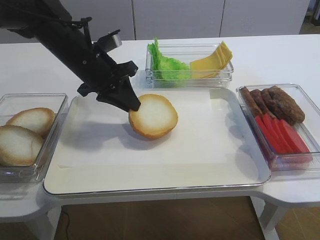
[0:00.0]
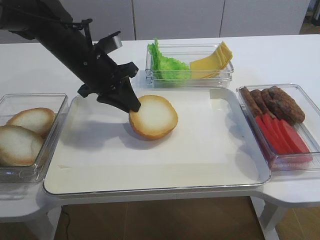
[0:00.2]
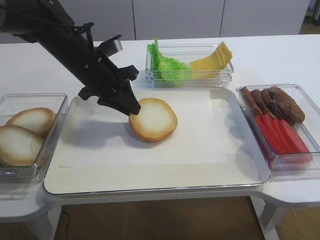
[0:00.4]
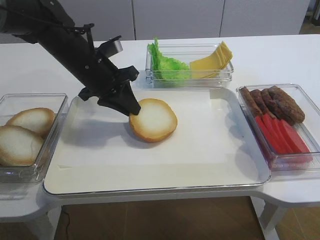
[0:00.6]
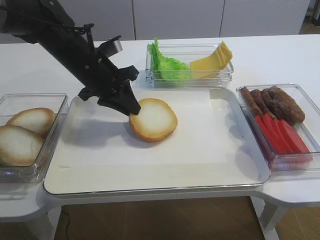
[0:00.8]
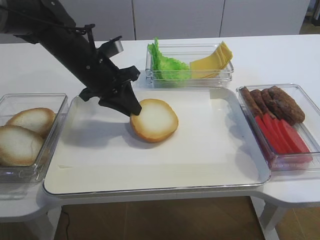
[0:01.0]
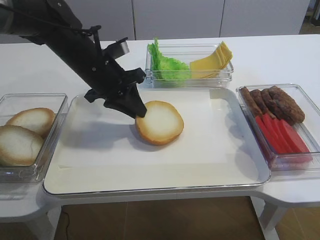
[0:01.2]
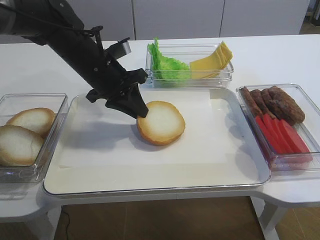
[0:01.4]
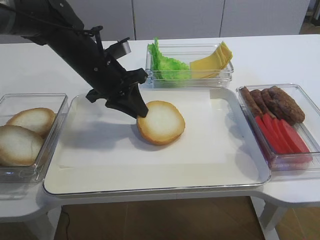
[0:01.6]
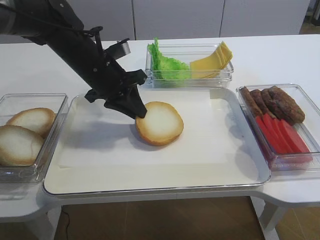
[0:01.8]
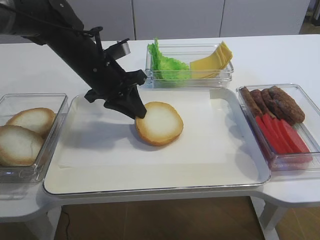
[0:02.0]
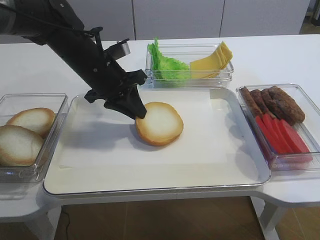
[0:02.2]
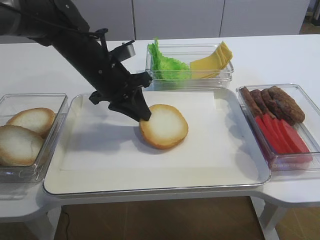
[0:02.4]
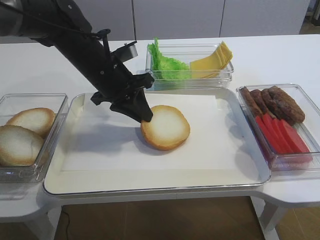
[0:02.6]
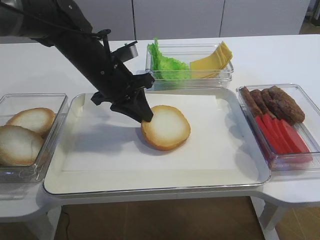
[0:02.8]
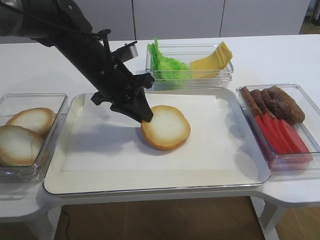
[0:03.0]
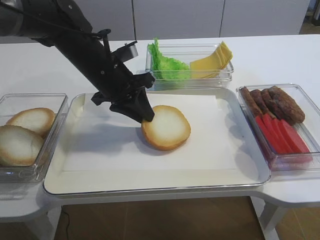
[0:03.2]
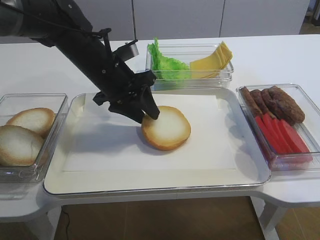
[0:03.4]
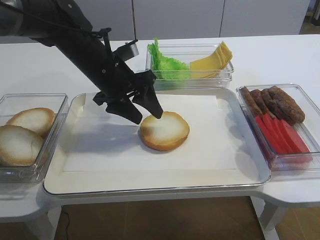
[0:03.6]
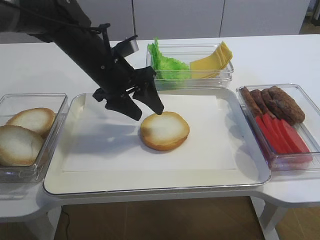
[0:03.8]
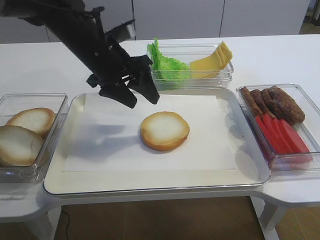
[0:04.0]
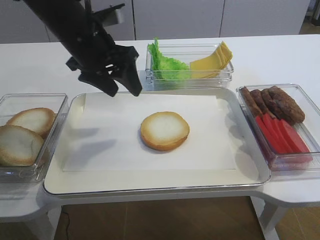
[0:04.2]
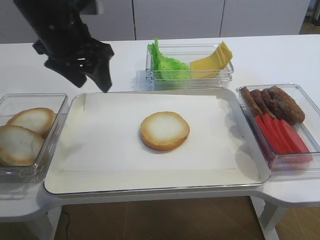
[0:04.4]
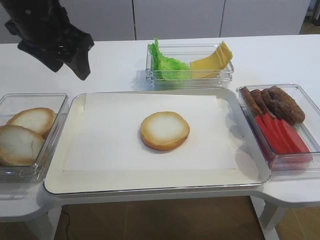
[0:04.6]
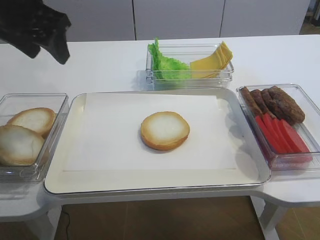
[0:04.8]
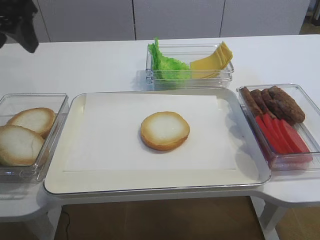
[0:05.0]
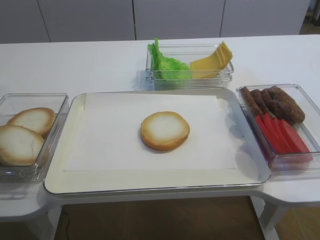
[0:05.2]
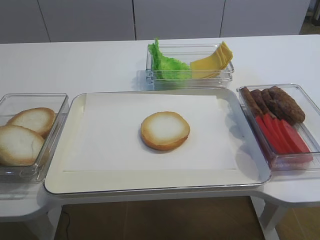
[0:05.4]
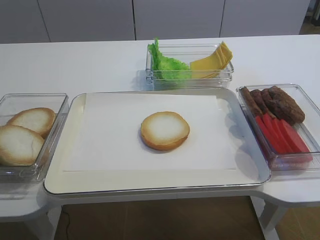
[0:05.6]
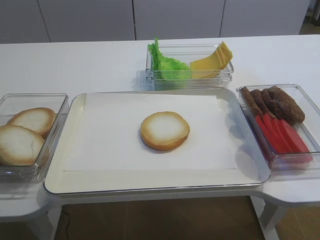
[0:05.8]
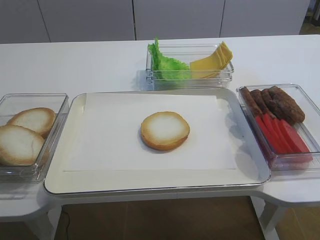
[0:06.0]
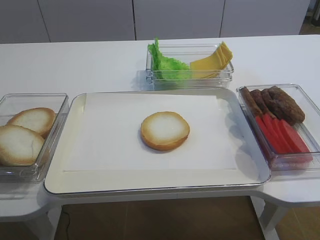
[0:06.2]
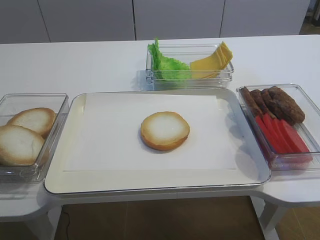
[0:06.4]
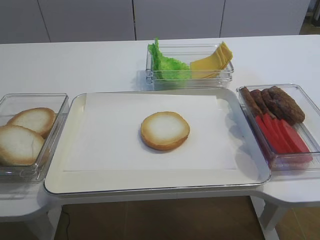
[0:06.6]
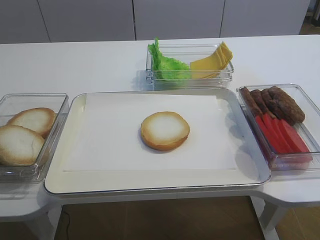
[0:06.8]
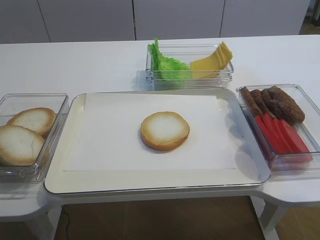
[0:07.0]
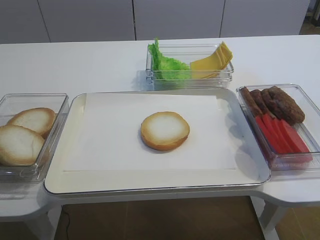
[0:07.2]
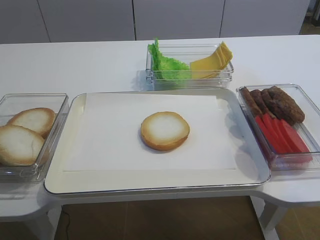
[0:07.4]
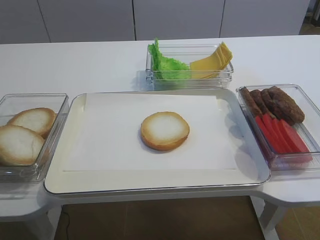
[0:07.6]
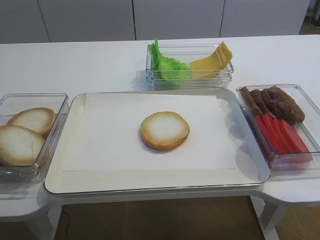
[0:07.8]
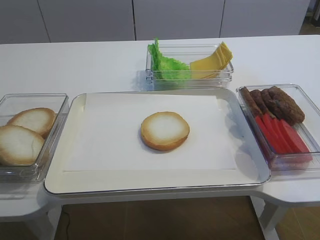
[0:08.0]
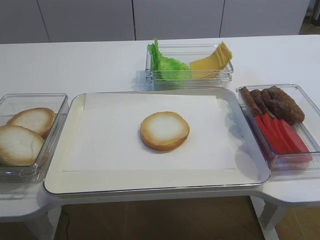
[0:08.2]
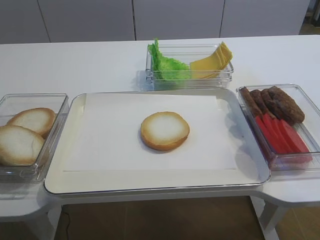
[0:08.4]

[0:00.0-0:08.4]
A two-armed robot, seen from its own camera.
Step, 0.0 to 3.8 s: Place the bread slice on the tray with the left gripper.
0.0 to 1.4 s: The grippers make only small movements.
1.4 to 2.8 s: Both grippers stay put.
2.8 to 4.2 s: The left gripper travels upward by approximately 5 cm, and opens up.
4.2 to 5.6 s: The left gripper shifts about 25 cm backward and to the left.

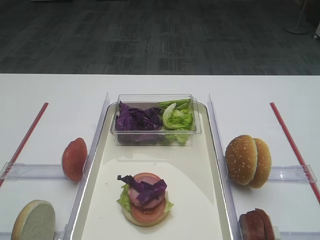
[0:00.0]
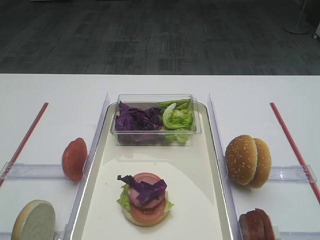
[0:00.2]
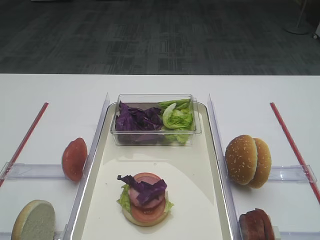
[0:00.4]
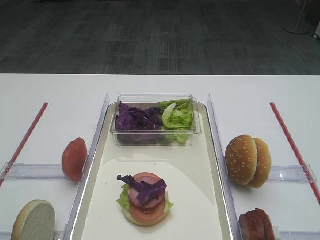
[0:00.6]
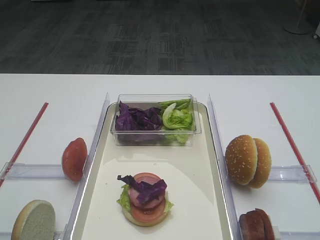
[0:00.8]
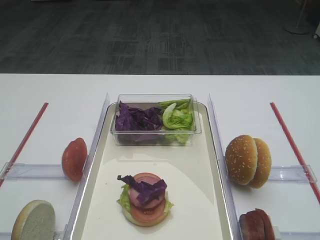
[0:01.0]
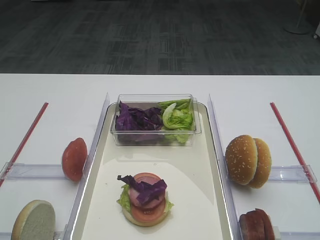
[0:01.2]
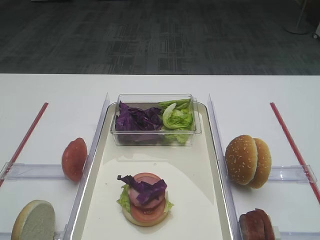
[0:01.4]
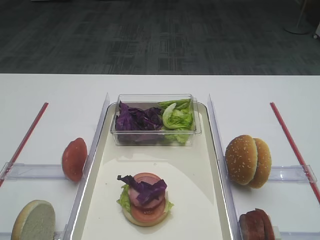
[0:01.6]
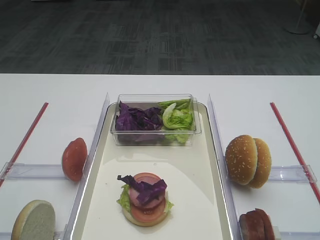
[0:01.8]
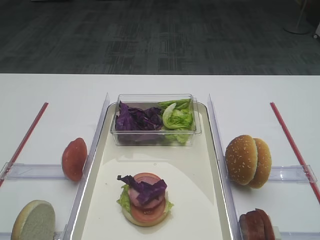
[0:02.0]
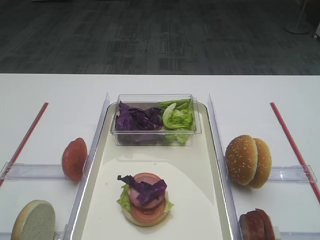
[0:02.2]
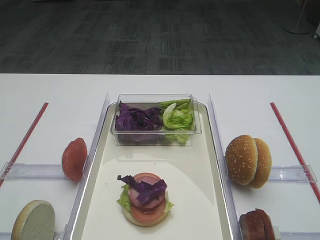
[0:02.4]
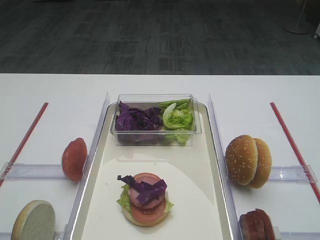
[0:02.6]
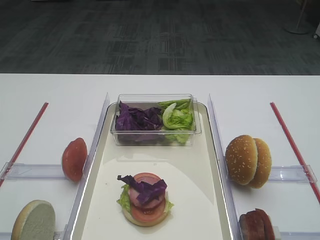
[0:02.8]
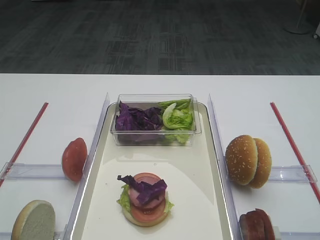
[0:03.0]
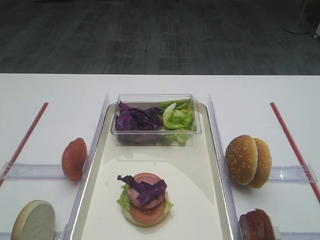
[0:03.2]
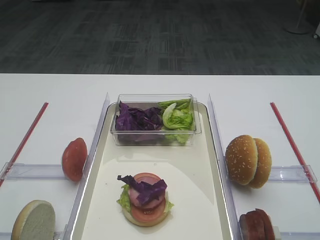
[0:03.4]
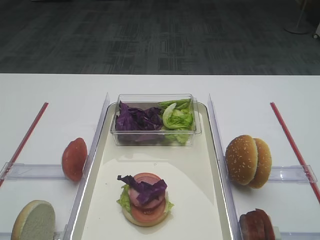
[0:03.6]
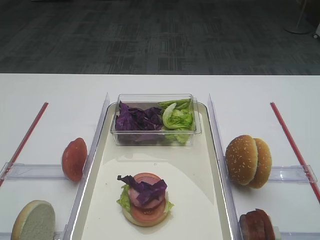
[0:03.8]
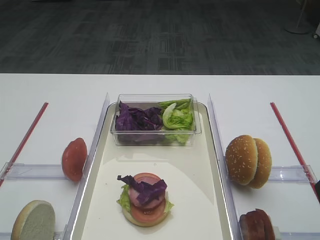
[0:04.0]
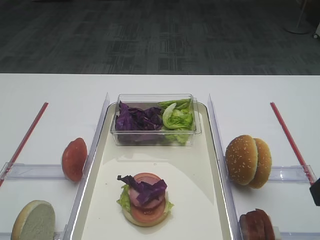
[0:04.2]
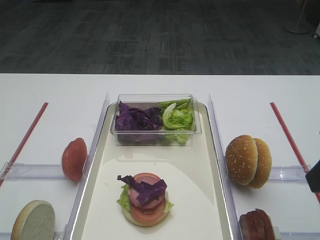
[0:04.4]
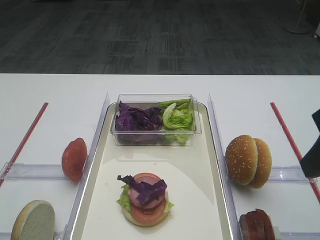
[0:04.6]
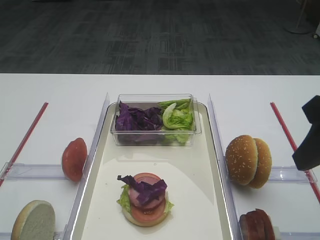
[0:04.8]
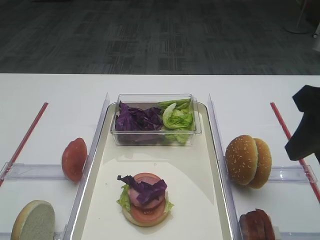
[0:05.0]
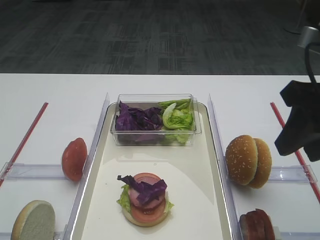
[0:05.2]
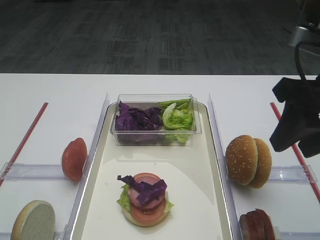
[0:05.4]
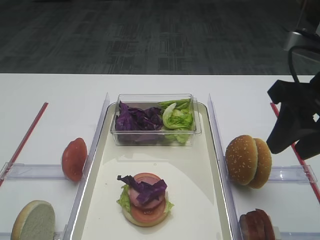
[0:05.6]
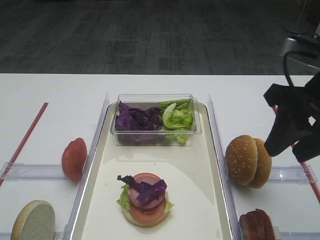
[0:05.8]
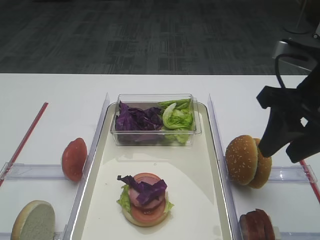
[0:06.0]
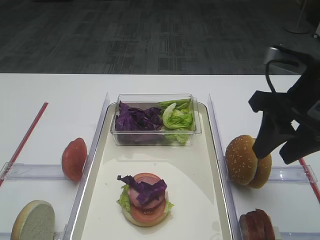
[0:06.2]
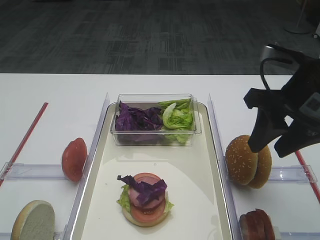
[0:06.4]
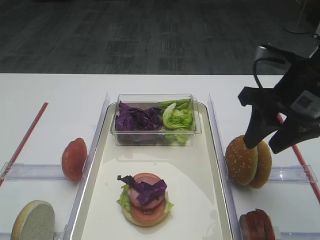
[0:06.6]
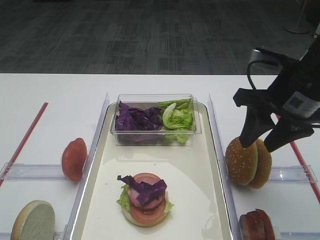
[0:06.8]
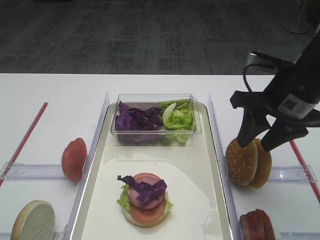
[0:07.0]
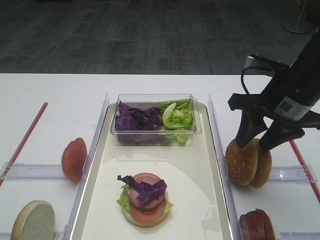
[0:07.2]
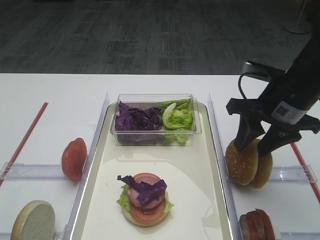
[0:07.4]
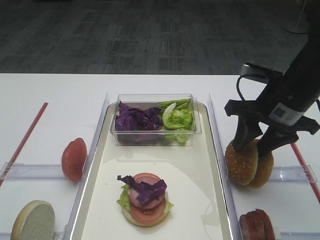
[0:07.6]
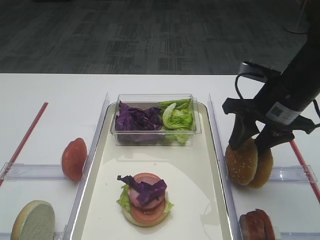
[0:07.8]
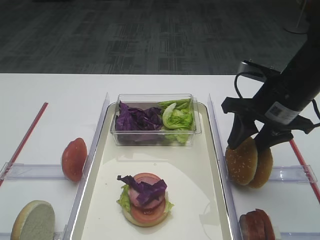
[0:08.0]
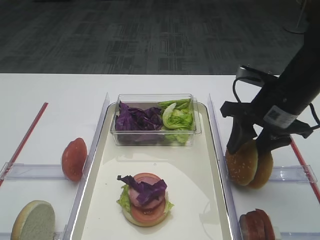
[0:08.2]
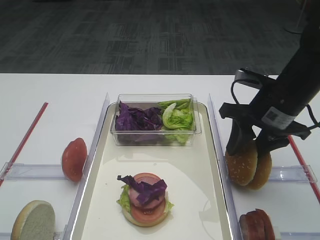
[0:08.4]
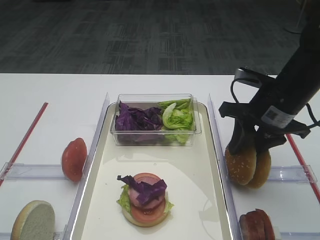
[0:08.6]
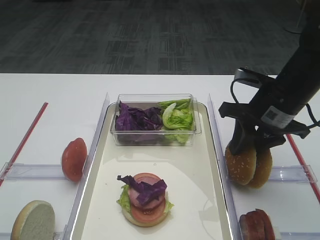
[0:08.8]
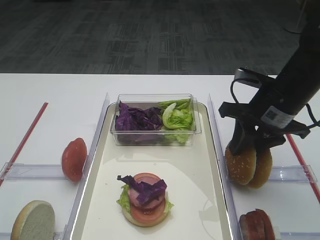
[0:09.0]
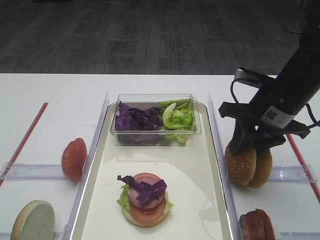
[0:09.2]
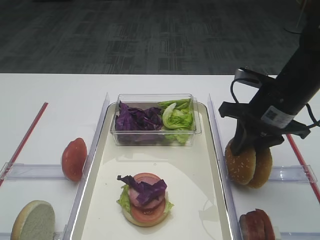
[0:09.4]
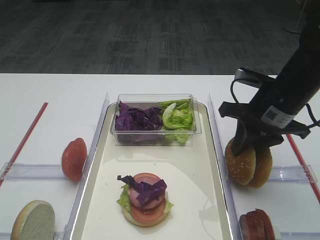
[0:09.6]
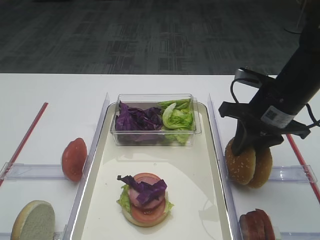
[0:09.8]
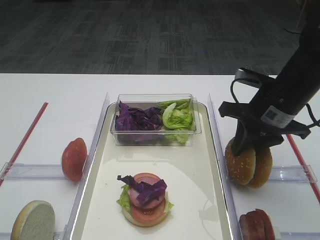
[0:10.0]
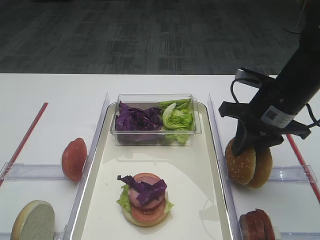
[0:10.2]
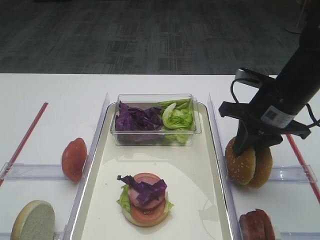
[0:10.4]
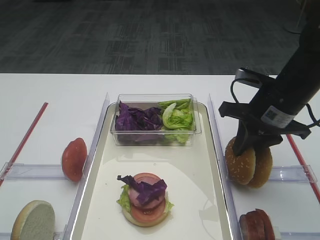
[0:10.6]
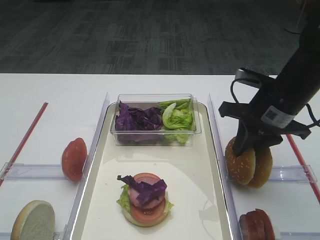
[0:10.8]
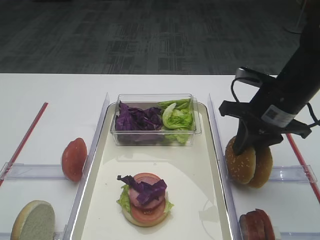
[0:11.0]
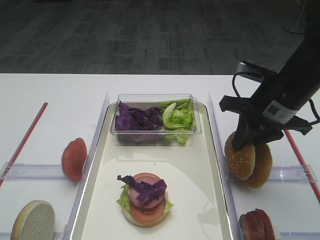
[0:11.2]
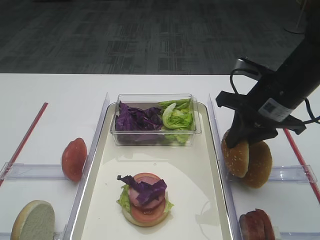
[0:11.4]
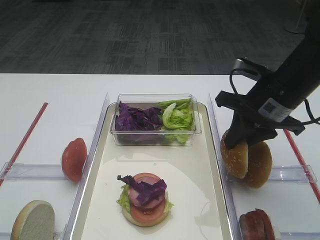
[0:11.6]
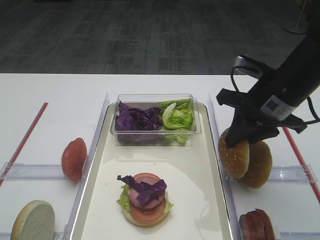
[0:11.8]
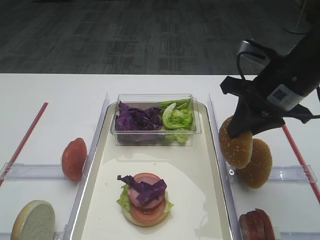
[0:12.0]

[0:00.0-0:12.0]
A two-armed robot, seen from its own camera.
4.4 to 6.0 s: The right gripper goes about 10 cm forward.
6.0 to 7.6 s: The right gripper heads forward and downward, covering about 10 cm.
7.6 to 9.0 s: The grippers make only small movements.
9.0 to 10.4 s: Neither gripper changes place.
10.4 to 12.0 s: The right gripper changes place by some 5 cm.

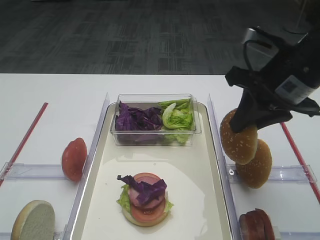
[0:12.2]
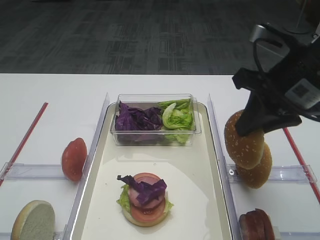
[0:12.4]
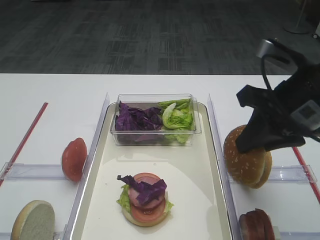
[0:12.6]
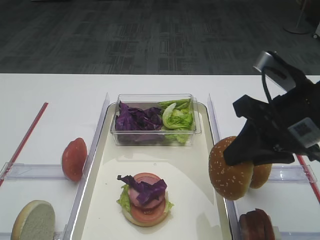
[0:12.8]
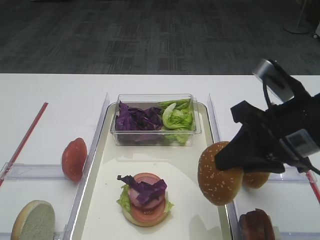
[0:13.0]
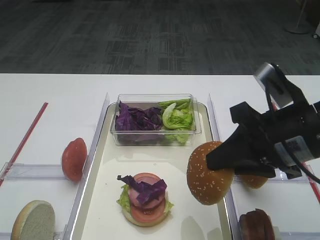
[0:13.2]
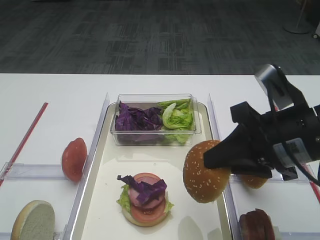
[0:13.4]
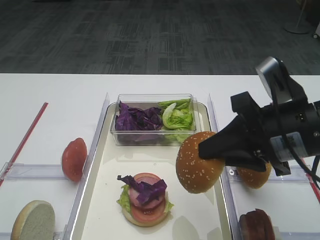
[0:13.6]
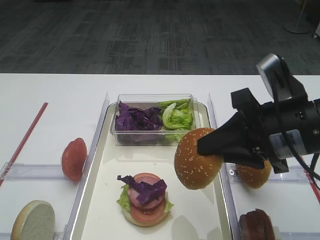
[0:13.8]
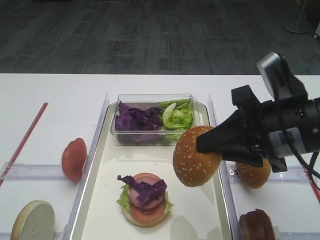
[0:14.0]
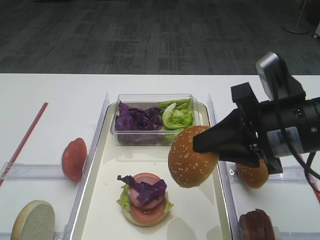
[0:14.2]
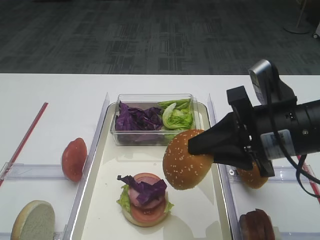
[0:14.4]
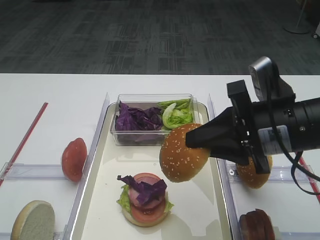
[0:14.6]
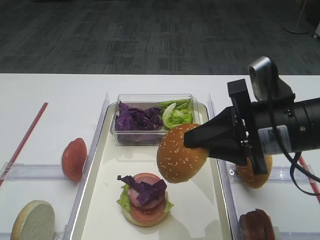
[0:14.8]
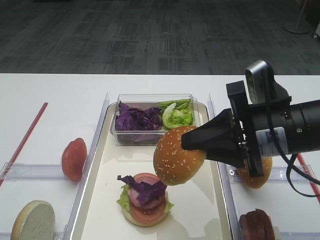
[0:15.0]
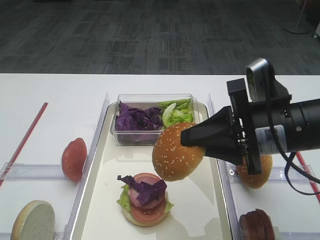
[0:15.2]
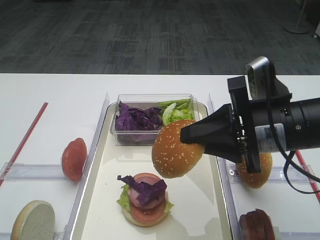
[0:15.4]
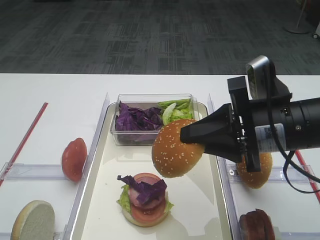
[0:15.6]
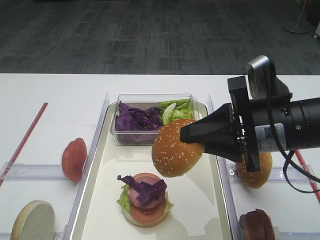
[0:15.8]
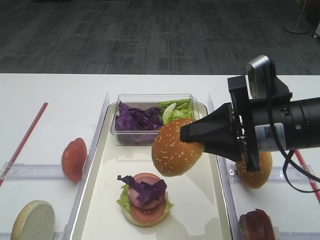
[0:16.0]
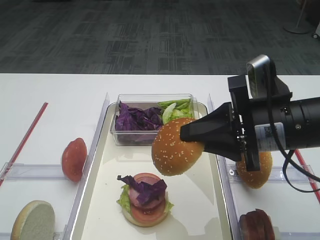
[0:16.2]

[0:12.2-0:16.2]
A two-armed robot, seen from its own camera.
12.2 to 13.6 s: The right gripper heads backward, covering some 10 cm.
13.6 to 14.8 s: The grippers stay close to where they were, moving slightly.
14.8 to 16.2 s: Both grippers stay put.
